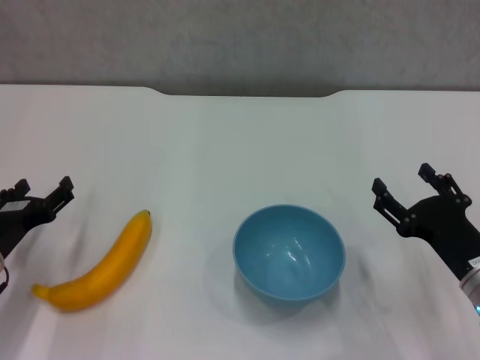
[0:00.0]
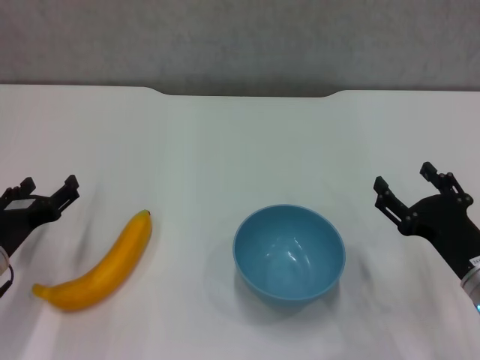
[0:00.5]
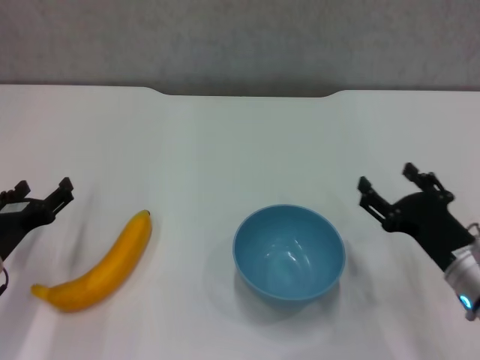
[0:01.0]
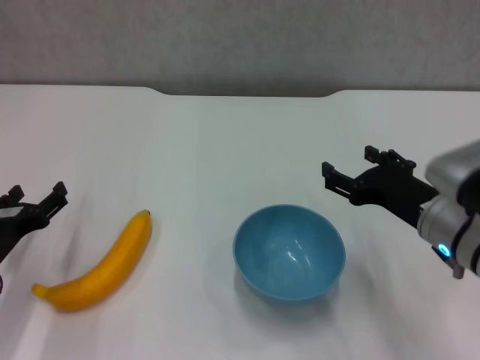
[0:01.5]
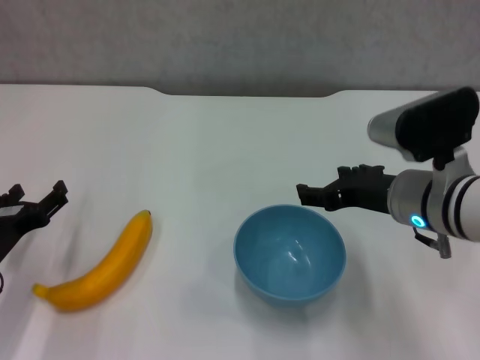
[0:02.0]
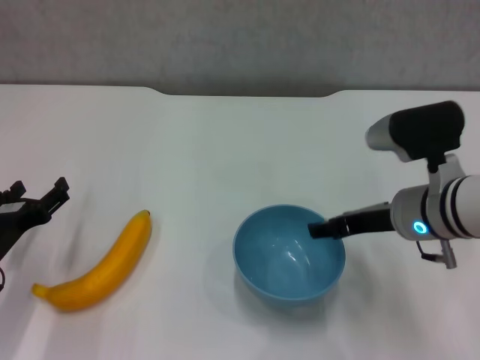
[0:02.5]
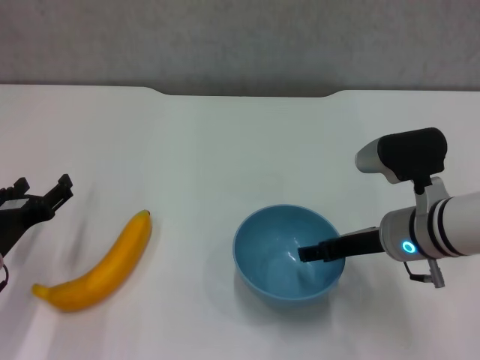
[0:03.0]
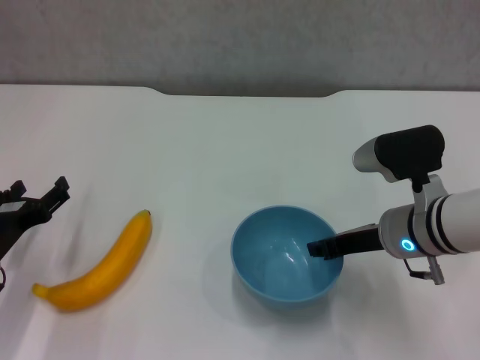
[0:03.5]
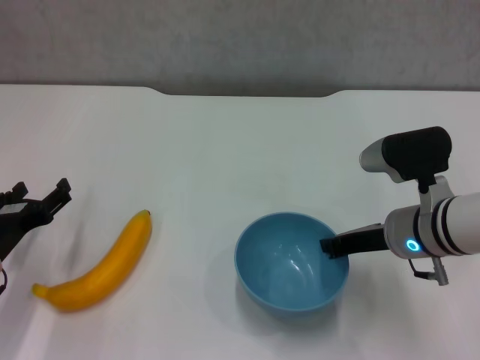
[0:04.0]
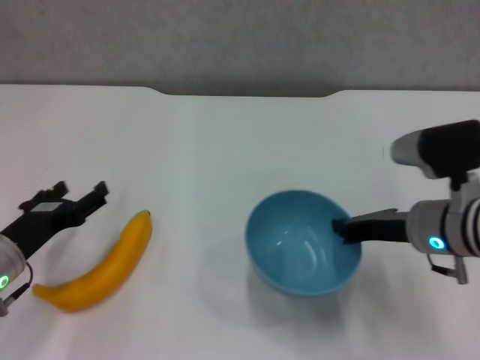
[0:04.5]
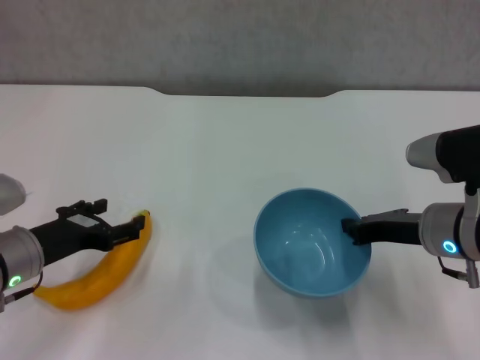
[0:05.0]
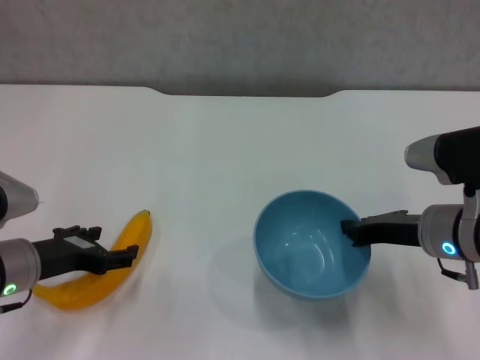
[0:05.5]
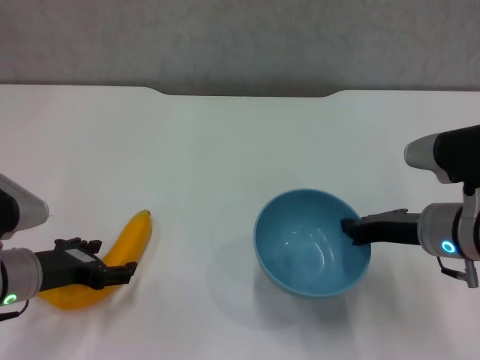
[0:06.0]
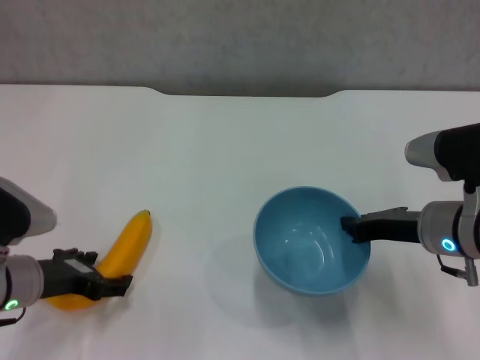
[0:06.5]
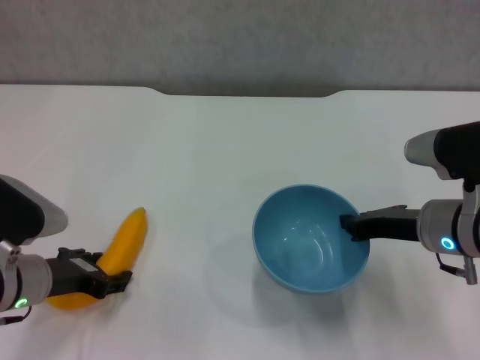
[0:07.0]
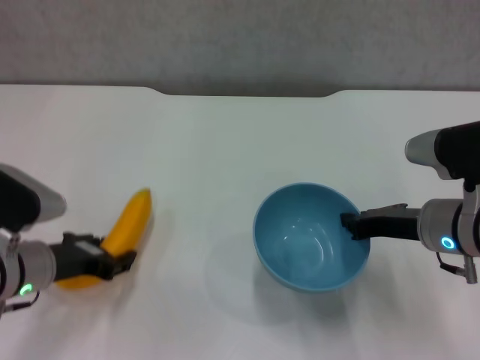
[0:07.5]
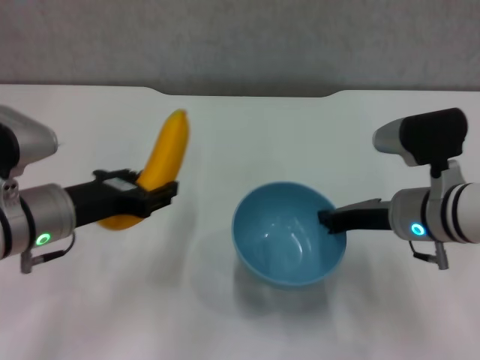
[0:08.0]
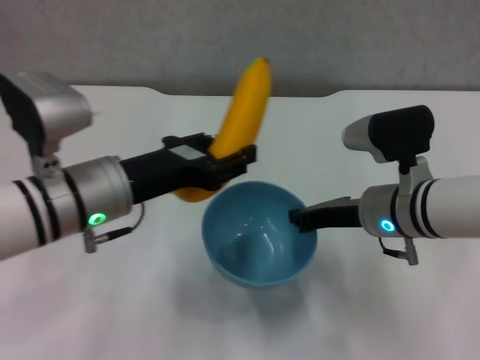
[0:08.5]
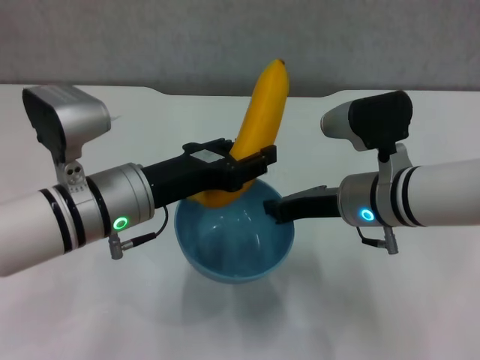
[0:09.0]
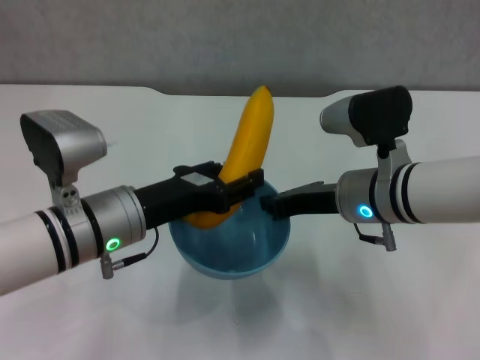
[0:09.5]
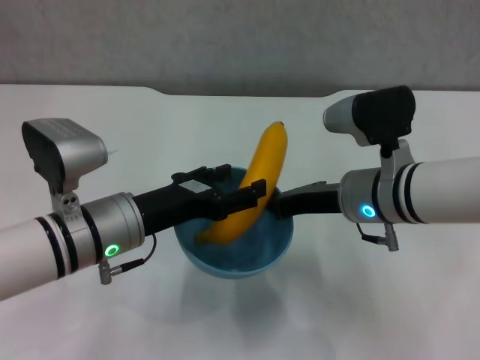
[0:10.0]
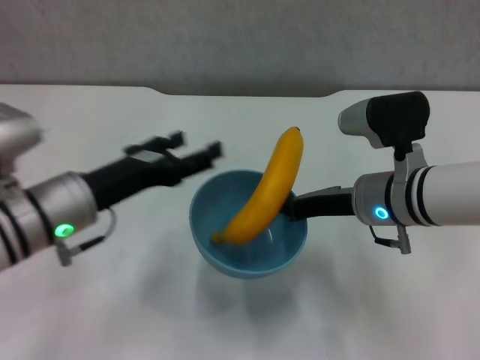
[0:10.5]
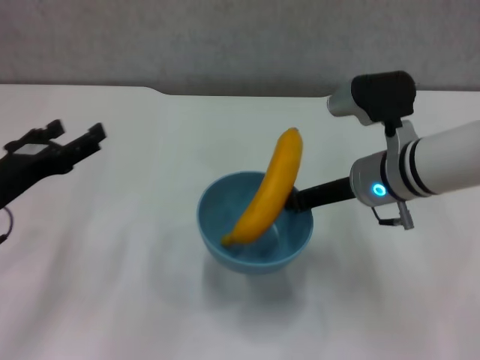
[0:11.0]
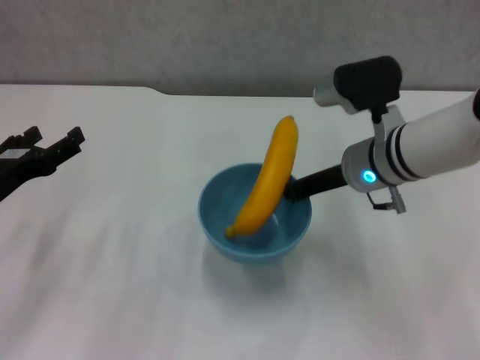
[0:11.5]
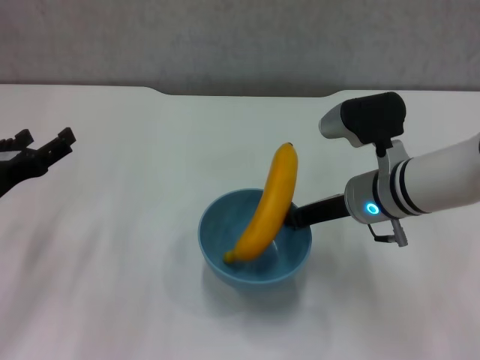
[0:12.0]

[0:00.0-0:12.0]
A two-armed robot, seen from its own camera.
Step, 0:00.0 to 0:03.5: Grasp the blue bowl with right gripper.
Step, 0:04.0 to 0:04.5: Lift the blue bowl with right gripper.
Step, 0:05.0 to 0:07.0: Grasp the banana with left gripper.
Step, 0:07.5 to 0:10.0: Place the banana in the blue bowl with left gripper.
0:00.0 to 0:02.0: The right gripper moves upward, to the left and forward, approximately 15 cm.
0:02.0 to 0:04.0: The right gripper shifts approximately 5 cm downward, and closes.
0:06.0 to 0:08.0: The left gripper shifts approximately 5 cm upward, and closes up.
0:08.0 to 0:10.0: The right gripper goes roughly 5 cm to the left. Meanwhile the left gripper shifts some 5 cm to the right.
0:10.0 to 0:12.0: The left gripper goes some 15 cm to the left, and opens.

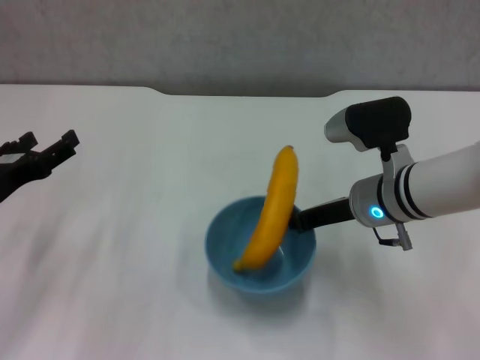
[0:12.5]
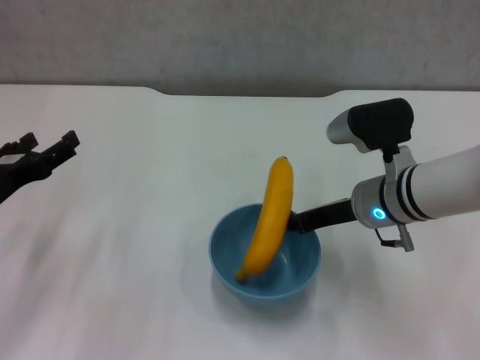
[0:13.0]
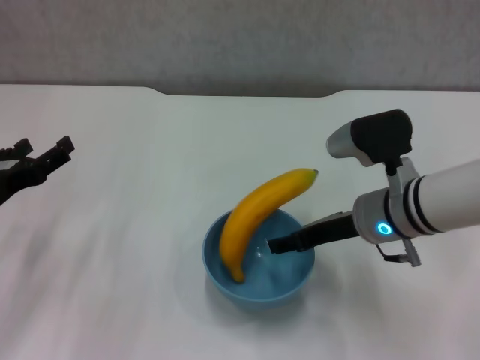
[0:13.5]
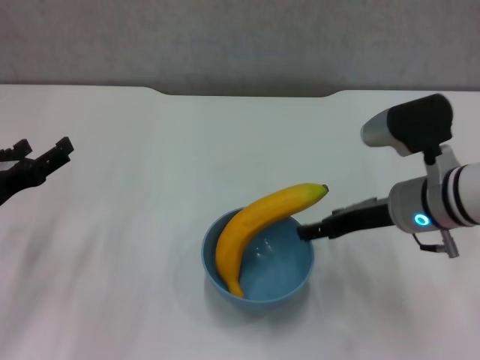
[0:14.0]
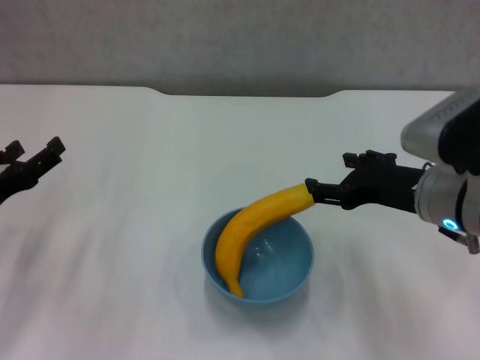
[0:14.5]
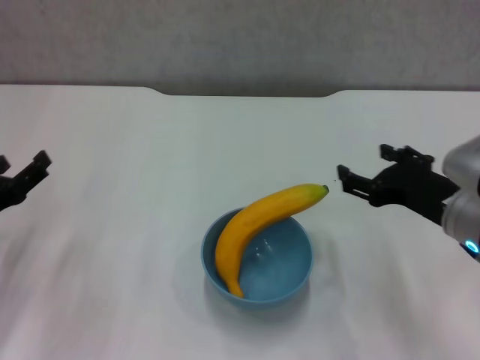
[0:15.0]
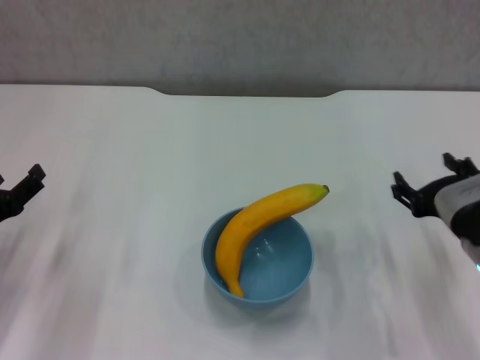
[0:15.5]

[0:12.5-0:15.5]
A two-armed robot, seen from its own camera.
0:12.5 to 0:14.0: The right gripper moves some 5 cm, and opens.
0:14.0 to 0:15.5: The left gripper shifts by some 5 cm. Meanwhile the right gripper is displaced backward by some 5 cm.
